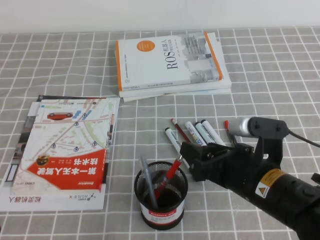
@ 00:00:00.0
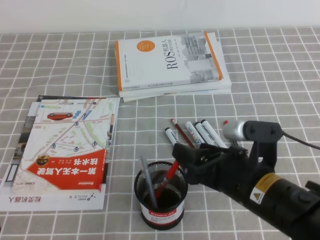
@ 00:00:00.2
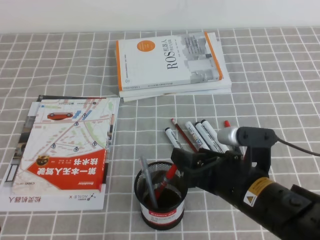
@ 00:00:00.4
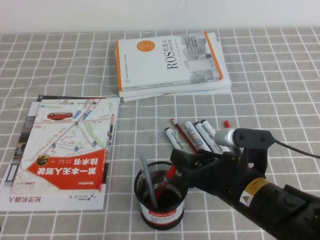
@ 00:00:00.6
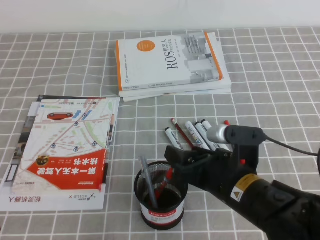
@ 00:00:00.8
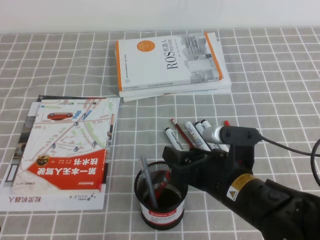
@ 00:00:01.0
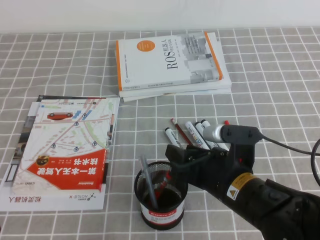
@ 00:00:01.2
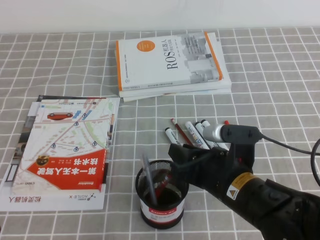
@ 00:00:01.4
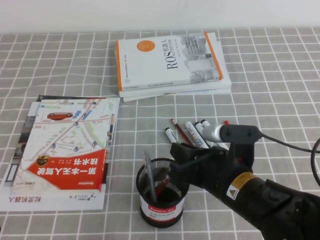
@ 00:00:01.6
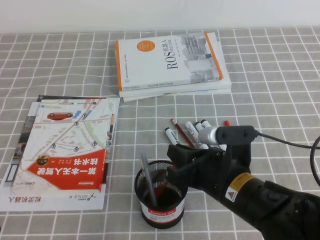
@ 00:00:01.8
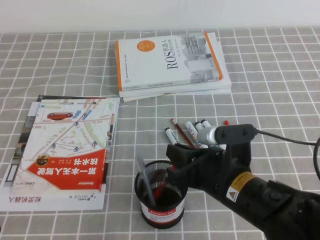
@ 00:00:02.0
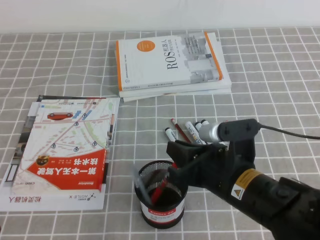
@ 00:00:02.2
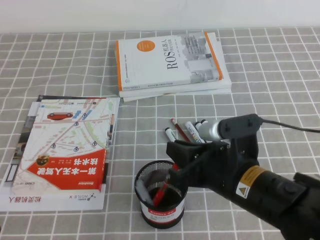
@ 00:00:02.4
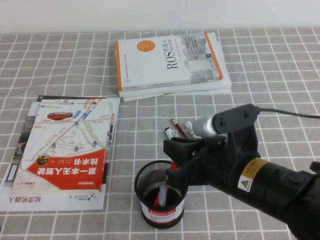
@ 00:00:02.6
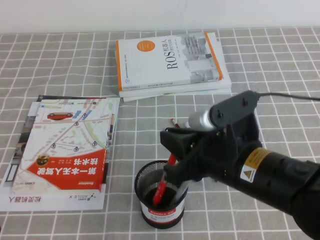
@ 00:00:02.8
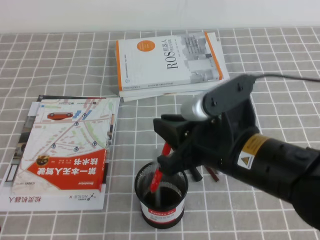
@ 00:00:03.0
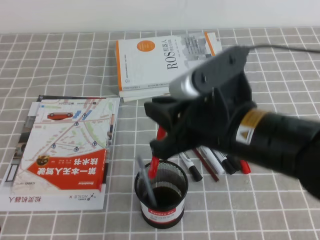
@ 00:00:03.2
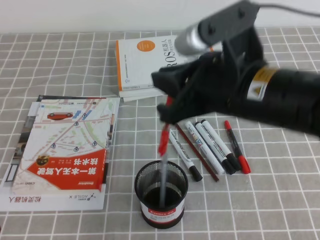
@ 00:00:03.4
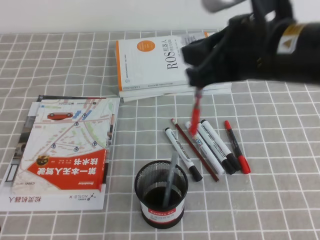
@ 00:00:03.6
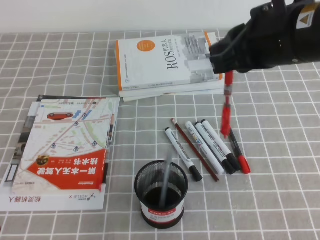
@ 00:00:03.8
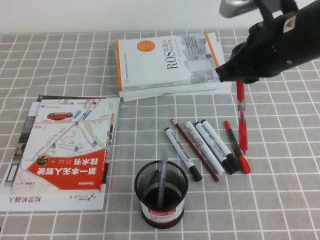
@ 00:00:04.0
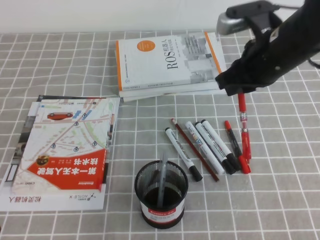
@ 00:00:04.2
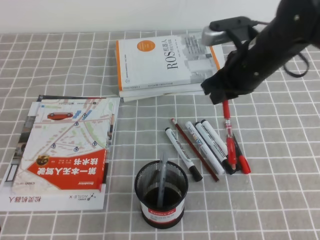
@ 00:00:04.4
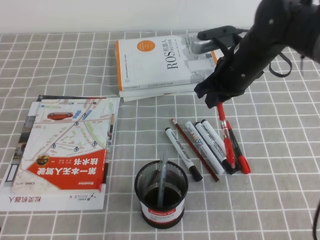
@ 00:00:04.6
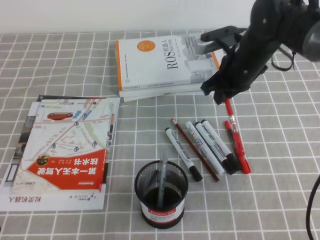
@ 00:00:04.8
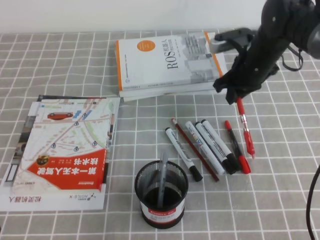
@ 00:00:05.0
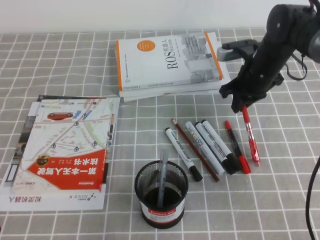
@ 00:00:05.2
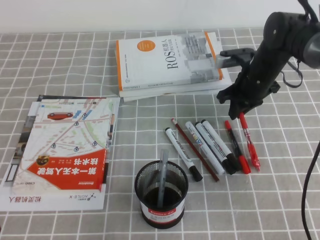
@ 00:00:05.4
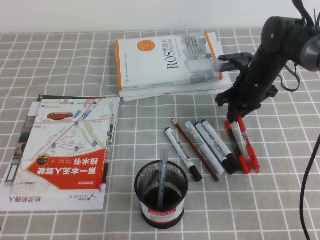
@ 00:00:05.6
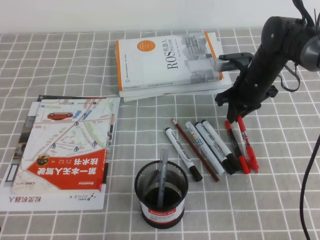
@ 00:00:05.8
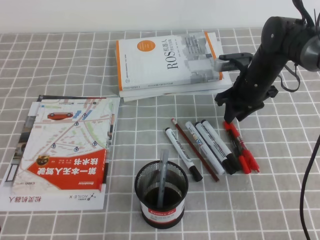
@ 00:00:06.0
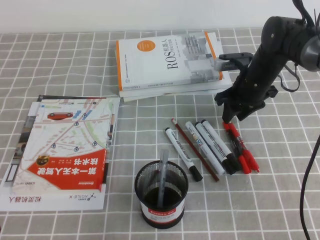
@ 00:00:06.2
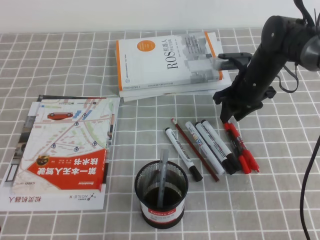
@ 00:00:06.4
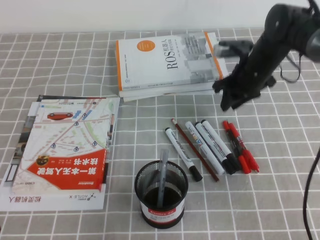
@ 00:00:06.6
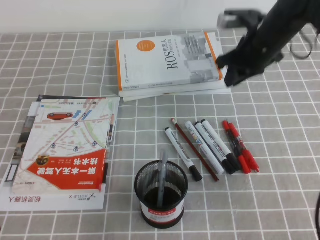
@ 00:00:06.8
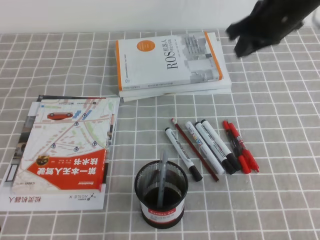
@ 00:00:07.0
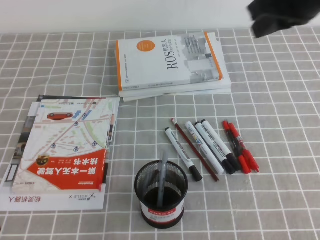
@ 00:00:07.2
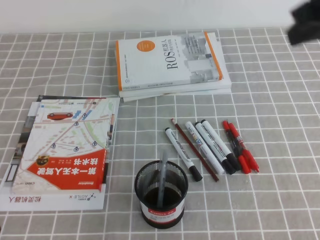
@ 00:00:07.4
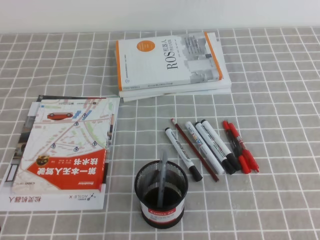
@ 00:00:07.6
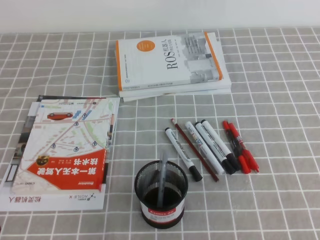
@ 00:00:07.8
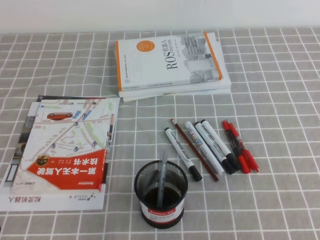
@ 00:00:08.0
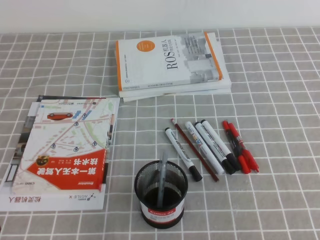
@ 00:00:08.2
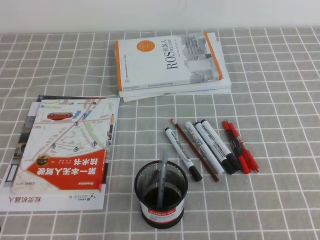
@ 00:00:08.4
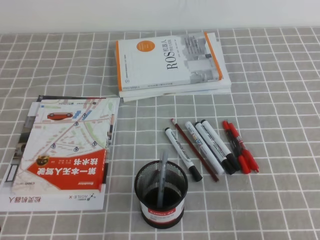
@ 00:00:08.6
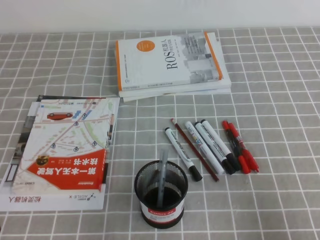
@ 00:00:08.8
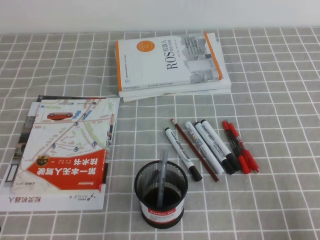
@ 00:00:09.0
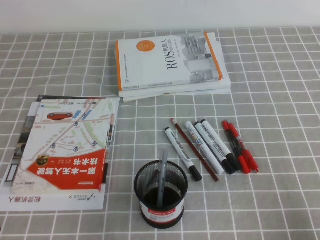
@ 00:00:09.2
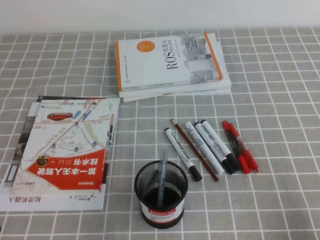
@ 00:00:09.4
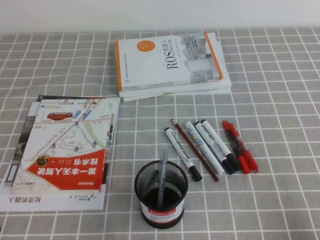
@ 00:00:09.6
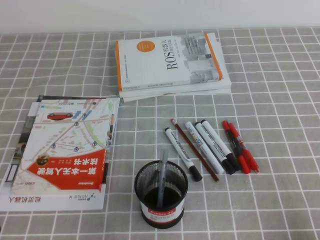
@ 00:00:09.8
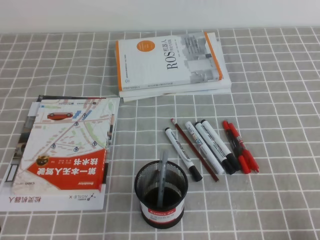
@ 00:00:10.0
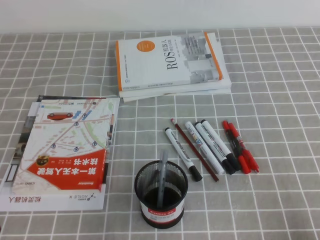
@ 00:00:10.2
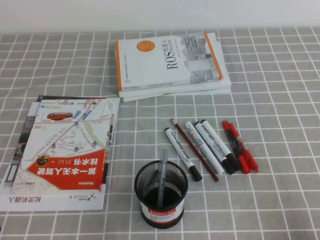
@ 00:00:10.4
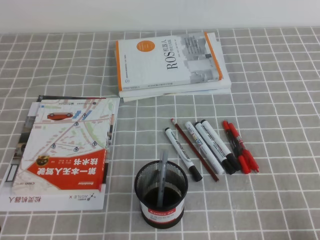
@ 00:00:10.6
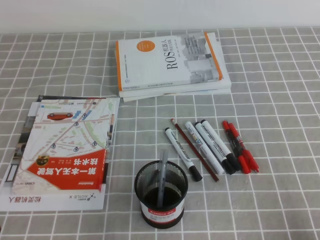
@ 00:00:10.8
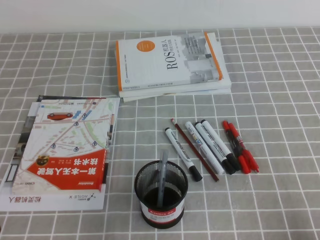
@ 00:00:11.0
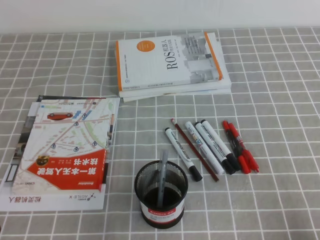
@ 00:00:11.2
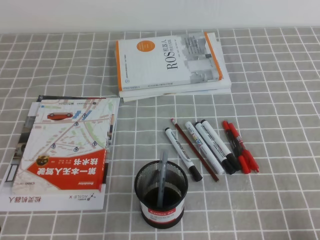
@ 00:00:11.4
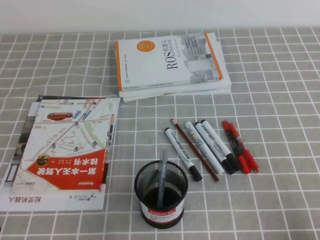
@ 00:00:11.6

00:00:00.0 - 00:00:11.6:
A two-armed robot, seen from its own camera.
Step, 00:00:00.0 - 00:00:11.6: Pick up the pen from the pen holder.
00:00:00.0 - 00:00:01.4: The right gripper closes.
00:00:01.4 - 00:00:02.8: The right gripper heads upward, covering approximately 10 cm, and closes.
00:00:02.8 - 00:00:04.4: The right gripper travels forward by some 20 cm.
00:00:04.4 - 00:00:05.8: The right gripper is displaced downward and forward by approximately 15 cm.
00:00:05.8 - 00:00:07.2: The right gripper shifts approximately 25 cm upward and backward, and opens, then closes once more.
00:00:07.2 - 00:00:08.8: The right gripper shifts about 30 cm backward and downward.
00:00:08.8 - 00:00:10.2: The right gripper moves downward, some 10 cm.
00:00:10.2 - 00:00:11.6: Both grippers stay about where they are.

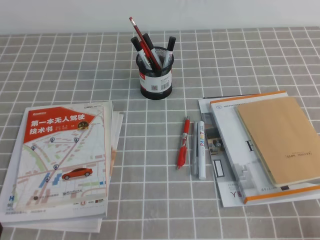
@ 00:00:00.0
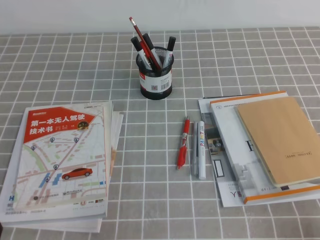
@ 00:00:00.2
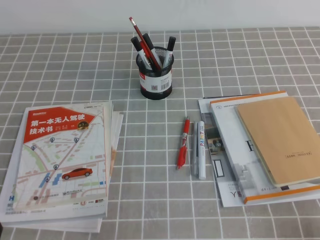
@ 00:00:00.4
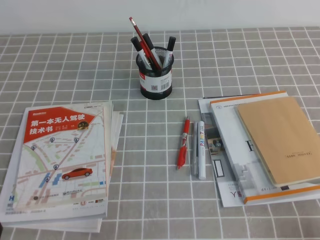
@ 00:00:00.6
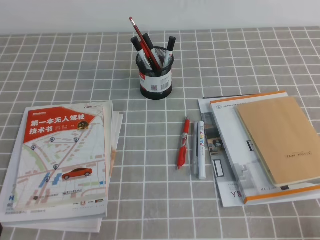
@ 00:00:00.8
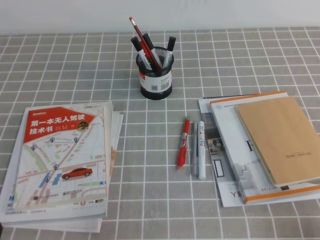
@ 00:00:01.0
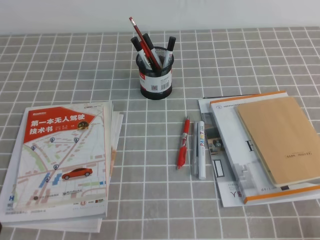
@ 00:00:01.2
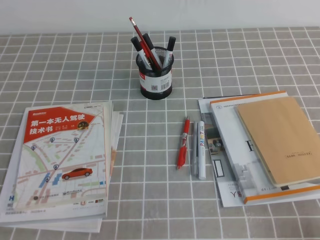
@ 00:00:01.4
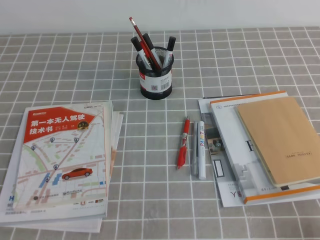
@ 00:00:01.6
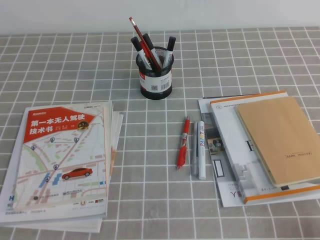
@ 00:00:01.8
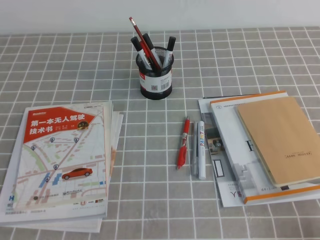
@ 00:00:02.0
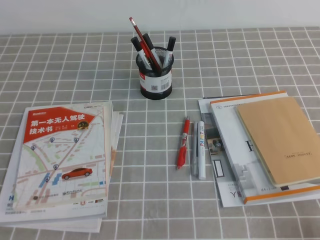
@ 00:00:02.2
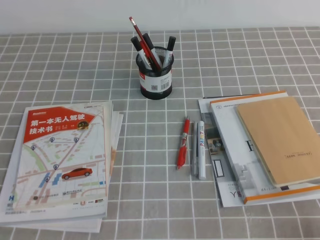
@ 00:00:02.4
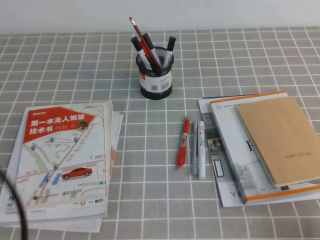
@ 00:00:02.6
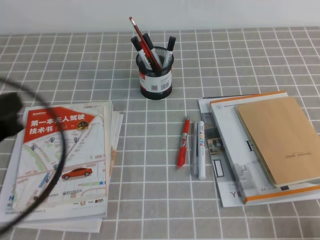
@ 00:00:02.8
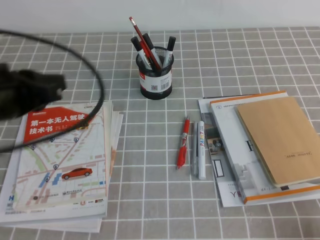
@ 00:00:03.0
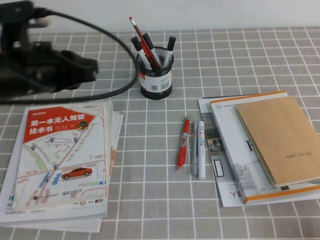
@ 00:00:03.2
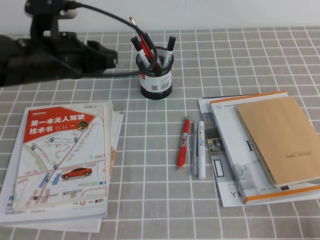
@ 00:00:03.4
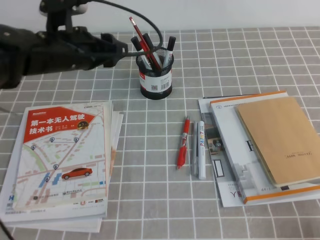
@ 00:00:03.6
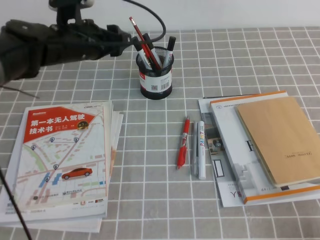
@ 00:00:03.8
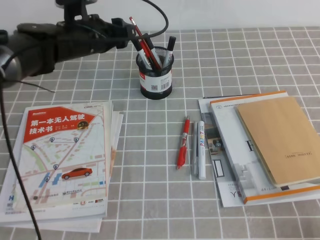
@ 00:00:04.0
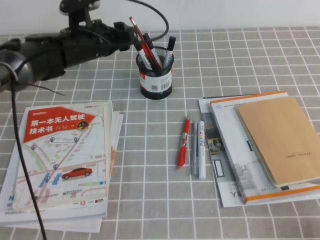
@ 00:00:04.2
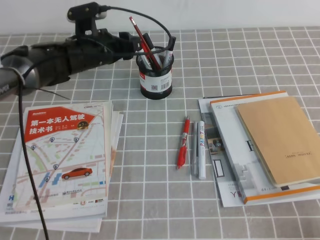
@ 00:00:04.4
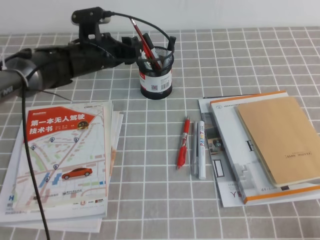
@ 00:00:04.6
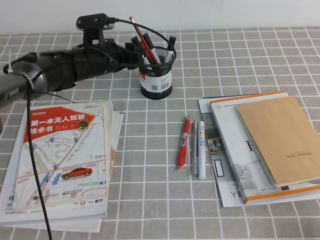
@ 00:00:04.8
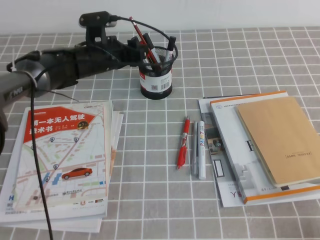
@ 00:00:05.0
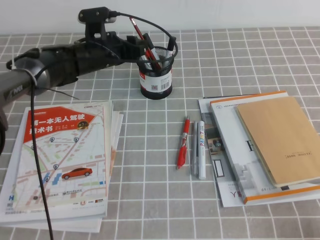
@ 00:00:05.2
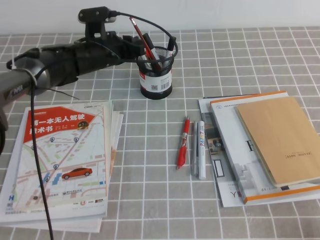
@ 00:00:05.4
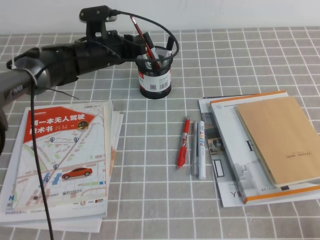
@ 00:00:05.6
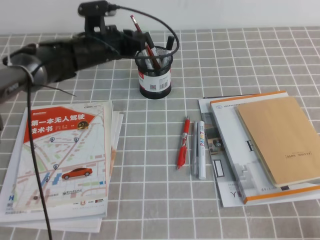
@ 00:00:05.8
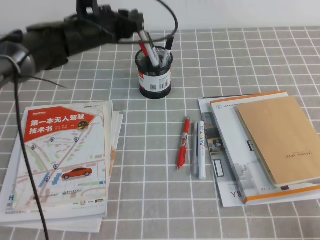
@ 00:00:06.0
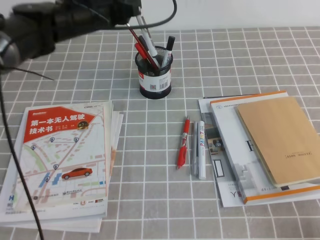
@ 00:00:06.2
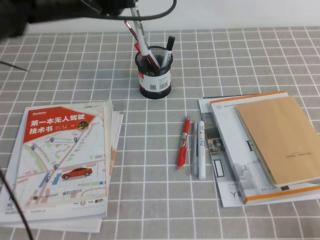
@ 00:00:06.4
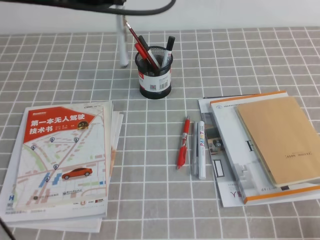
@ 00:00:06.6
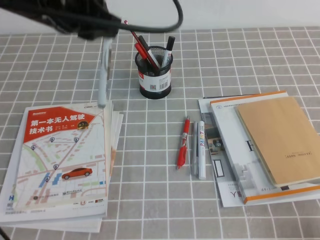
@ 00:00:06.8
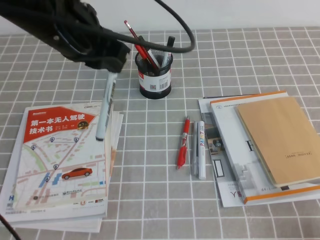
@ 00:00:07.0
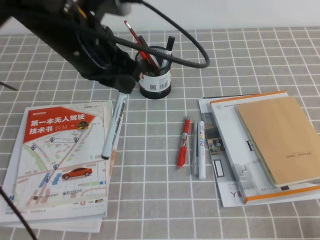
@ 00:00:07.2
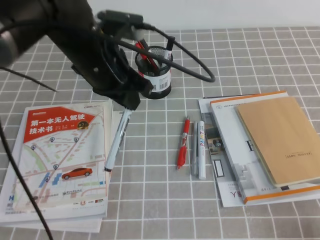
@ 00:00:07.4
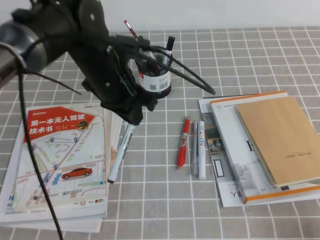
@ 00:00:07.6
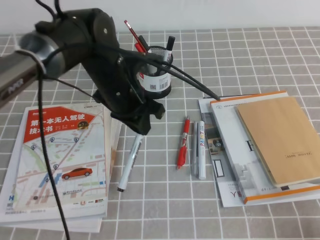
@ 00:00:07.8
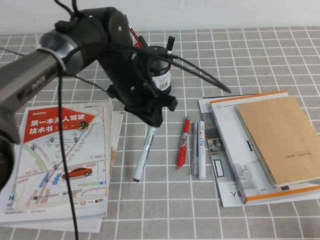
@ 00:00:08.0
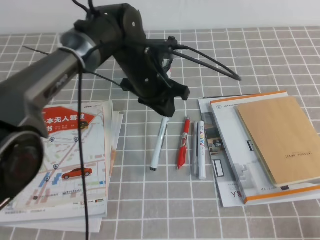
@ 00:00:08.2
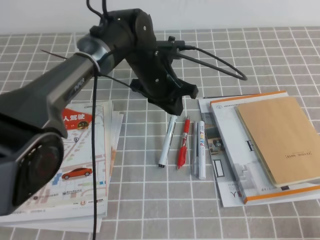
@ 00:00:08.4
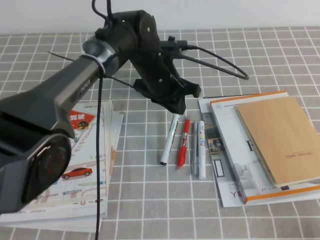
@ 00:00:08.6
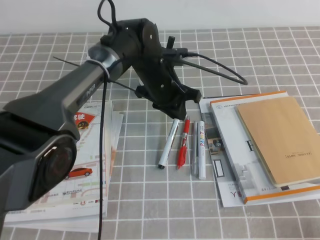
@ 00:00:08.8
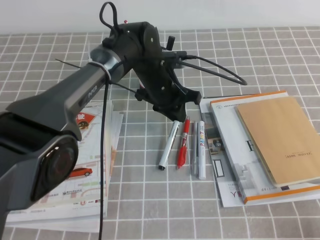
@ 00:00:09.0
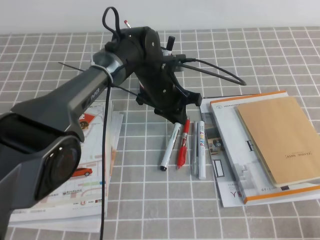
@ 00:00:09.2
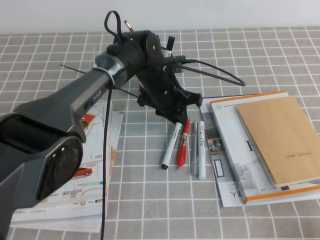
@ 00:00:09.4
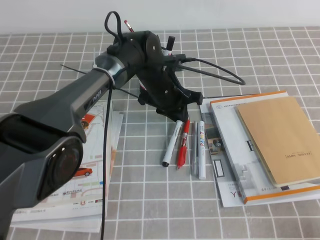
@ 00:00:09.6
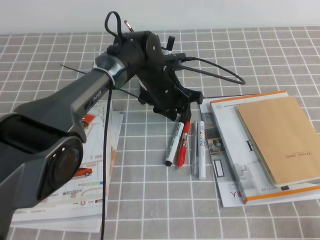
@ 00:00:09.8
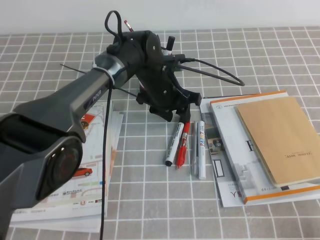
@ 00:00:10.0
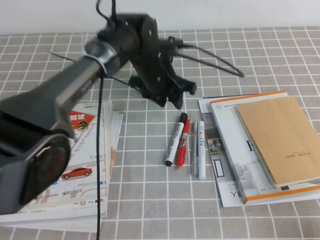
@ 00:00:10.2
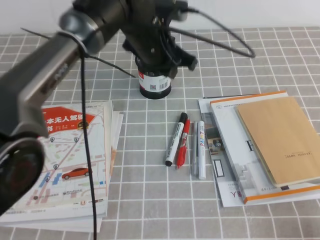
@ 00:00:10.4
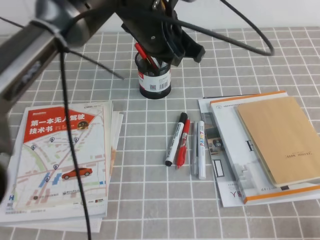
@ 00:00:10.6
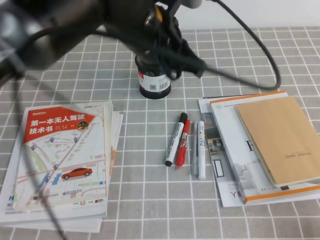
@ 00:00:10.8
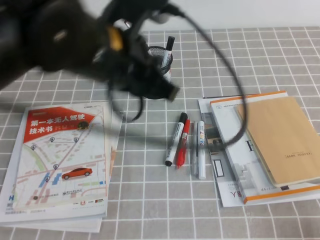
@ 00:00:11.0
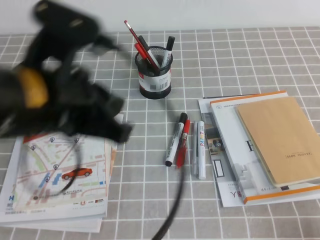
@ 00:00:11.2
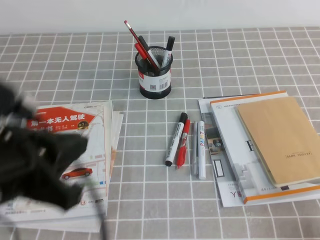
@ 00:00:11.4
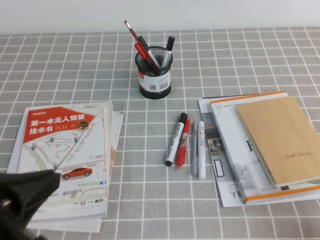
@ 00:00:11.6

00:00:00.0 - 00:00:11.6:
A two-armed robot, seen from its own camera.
00:00:01.4 - 00:00:02.8: The left gripper shifts roughly 20 cm upward and forward.
00:00:02.8 - 00:00:04.4: The left gripper shifts some 30 cm forward, and opens up.
00:00:04.4 - 00:00:05.8: The left gripper closes its fingers.
00:00:05.8 - 00:00:07.2: The left gripper goes roughly 20 cm backward and upward.
00:00:07.2 - 00:00:08.8: The left gripper travels downward, to the right and forward by about 20 cm.
00:00:08.8 - 00:00:10.2: The left gripper opens.
00:00:10.2 - 00:00:11.6: The left gripper goes approximately 40 cm backward and to the left, and closes.
